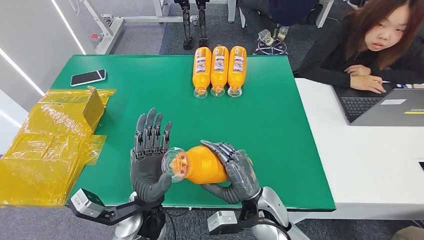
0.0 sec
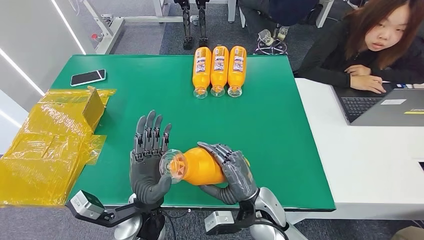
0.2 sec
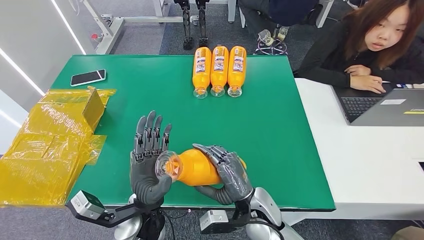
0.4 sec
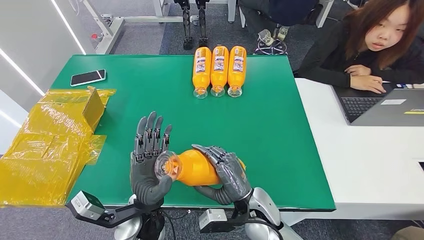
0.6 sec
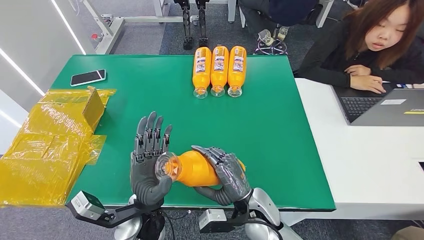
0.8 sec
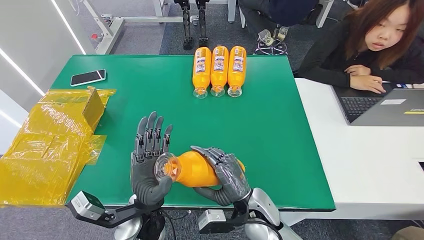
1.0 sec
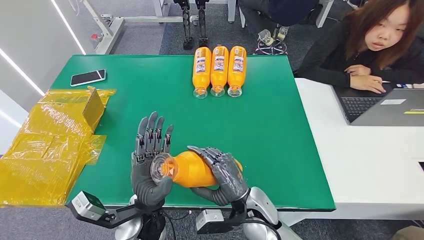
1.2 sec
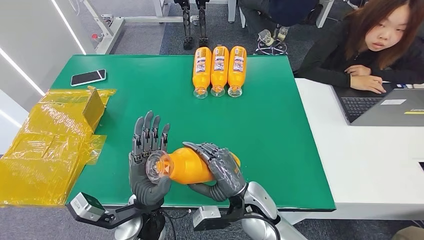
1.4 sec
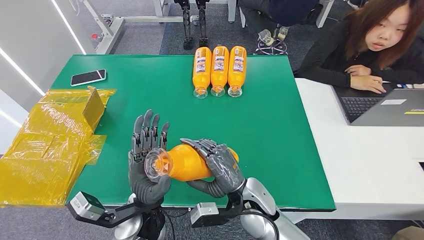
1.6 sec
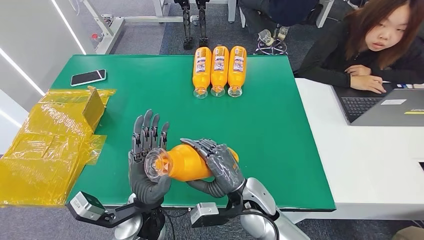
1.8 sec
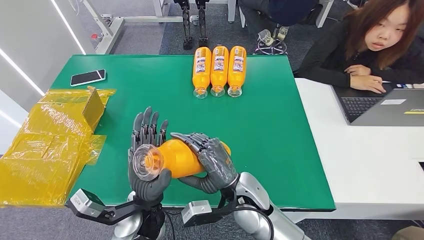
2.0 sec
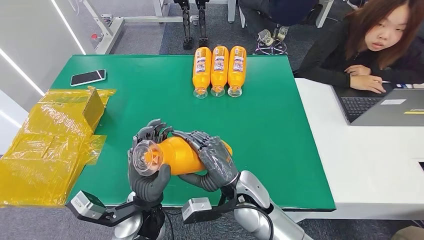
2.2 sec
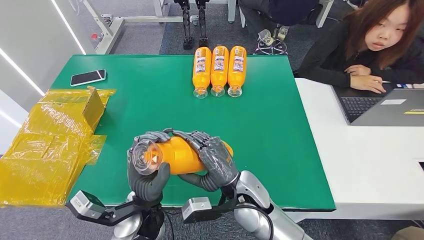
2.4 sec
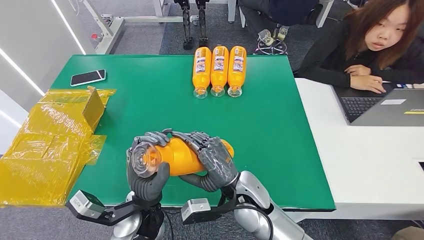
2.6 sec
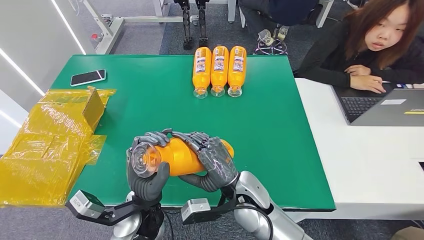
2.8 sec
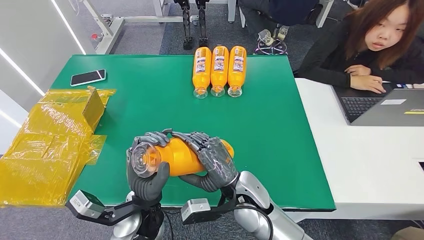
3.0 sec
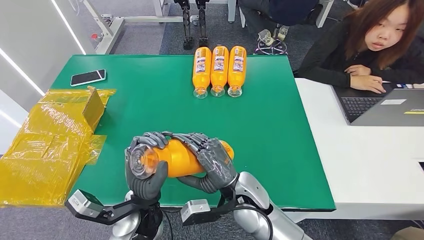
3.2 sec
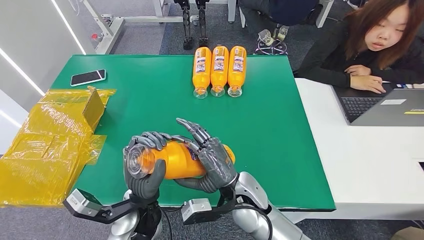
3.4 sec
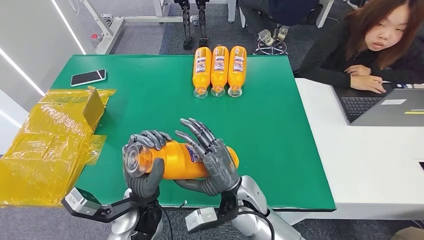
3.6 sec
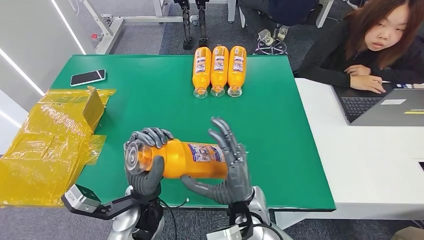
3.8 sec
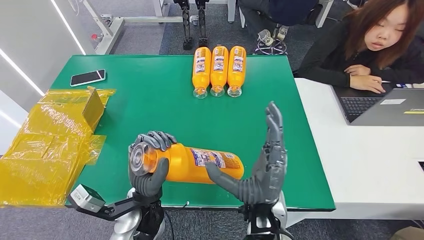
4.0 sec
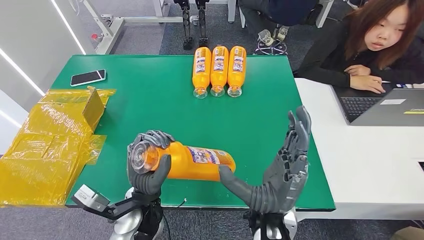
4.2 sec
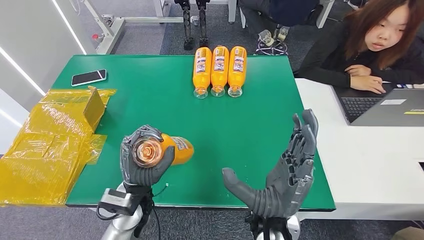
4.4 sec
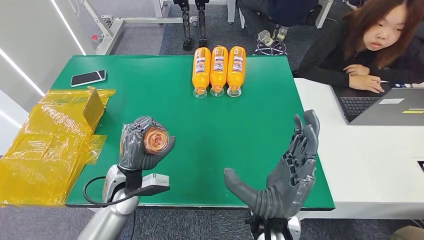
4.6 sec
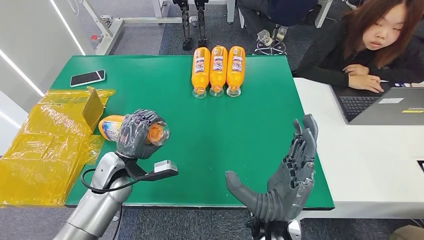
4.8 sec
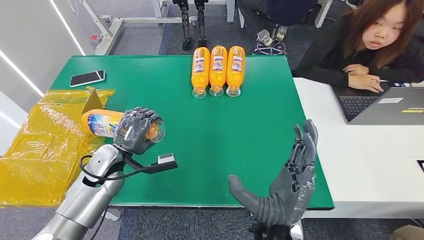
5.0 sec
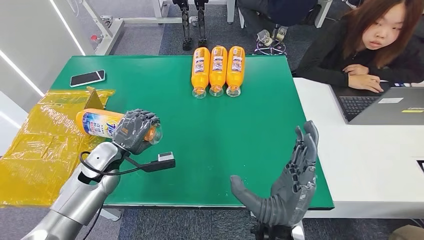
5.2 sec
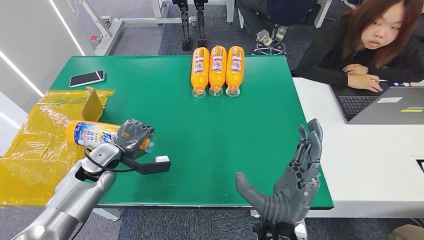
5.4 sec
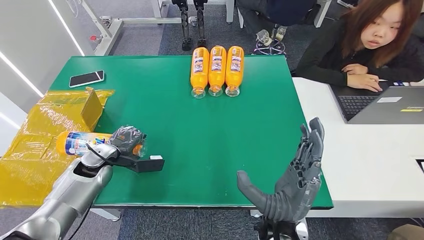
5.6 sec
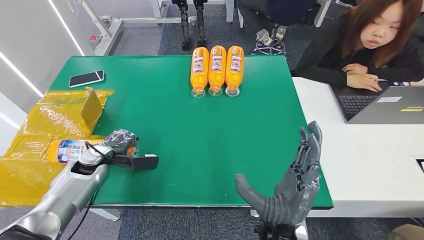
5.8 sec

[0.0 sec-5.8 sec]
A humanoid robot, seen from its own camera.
Step, 0.0 sec to 5.8 sec: Turn the bottle to the front side.
0.0 sec to 2.8 sec: The hands move only a little.
2.8 sec to 4.4 sec: The right hand heads backward and upward, covering about 10 cm.

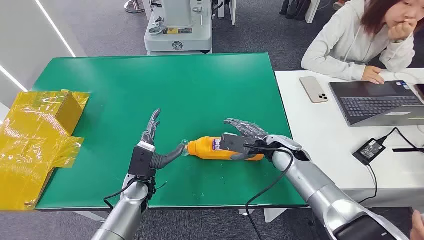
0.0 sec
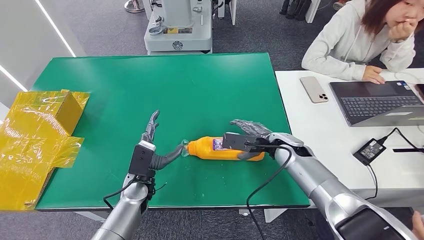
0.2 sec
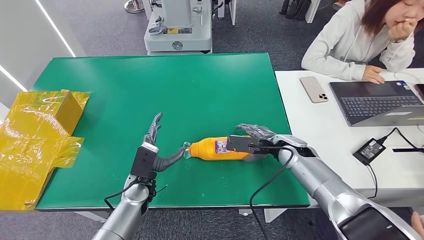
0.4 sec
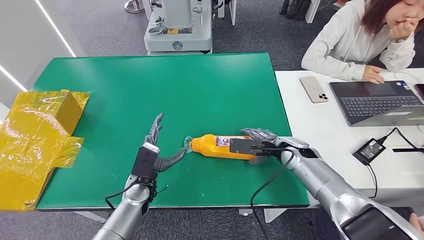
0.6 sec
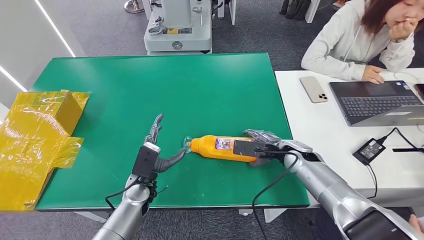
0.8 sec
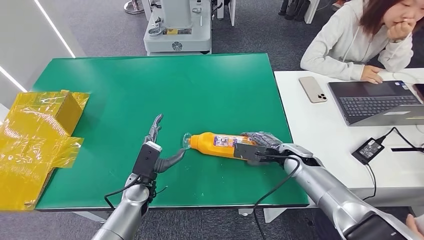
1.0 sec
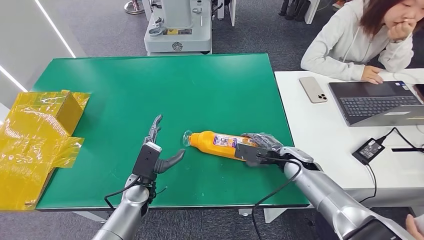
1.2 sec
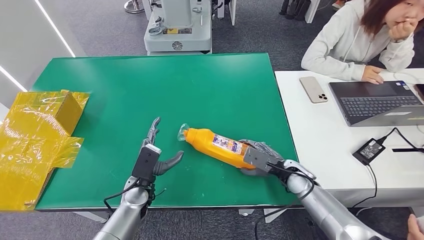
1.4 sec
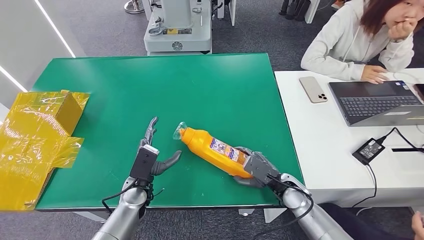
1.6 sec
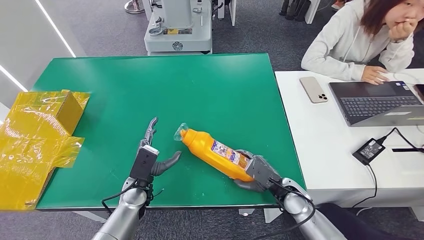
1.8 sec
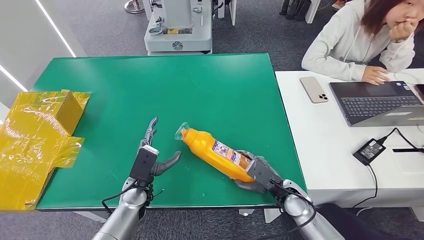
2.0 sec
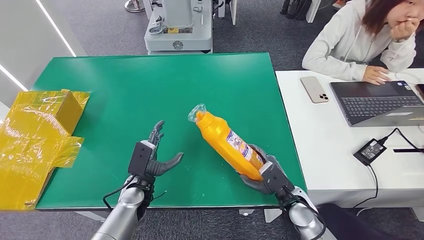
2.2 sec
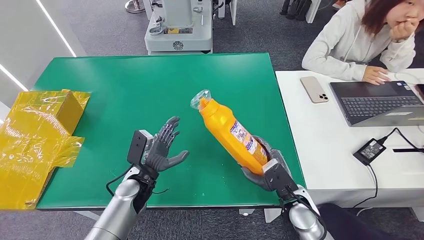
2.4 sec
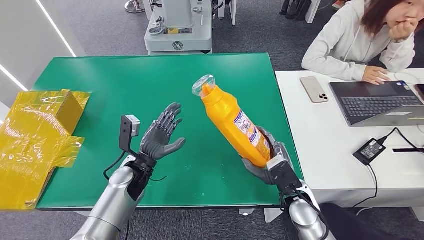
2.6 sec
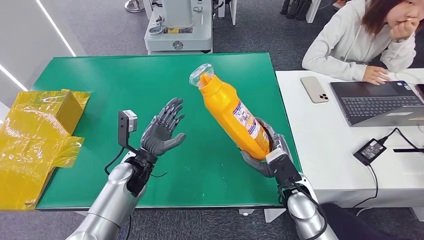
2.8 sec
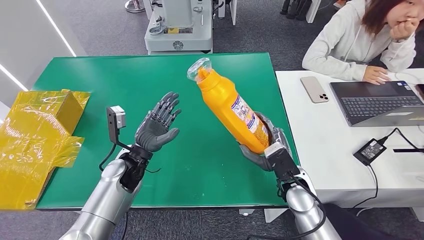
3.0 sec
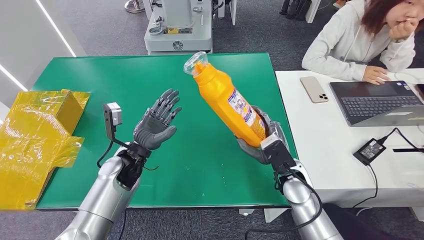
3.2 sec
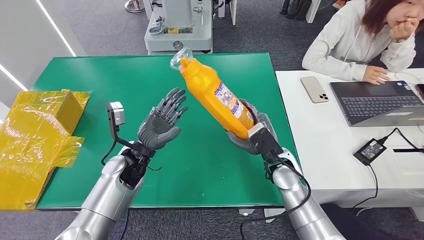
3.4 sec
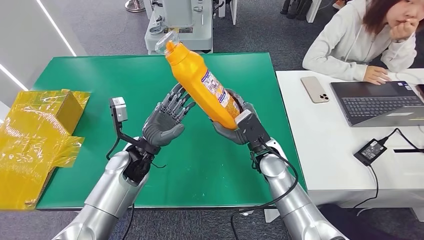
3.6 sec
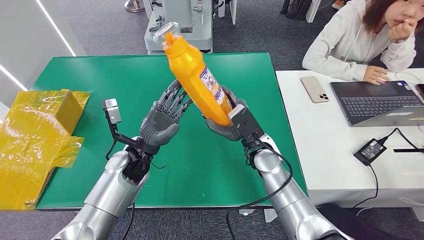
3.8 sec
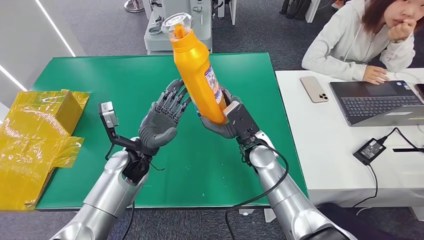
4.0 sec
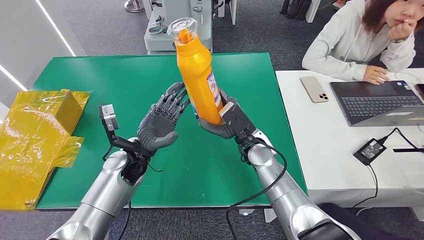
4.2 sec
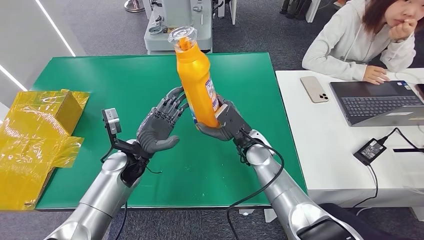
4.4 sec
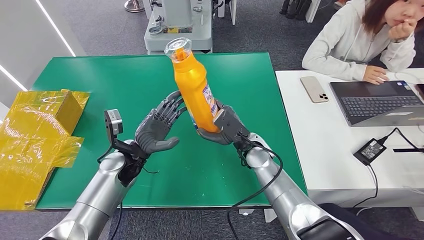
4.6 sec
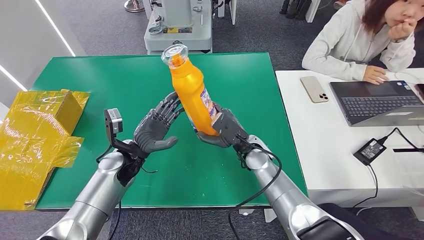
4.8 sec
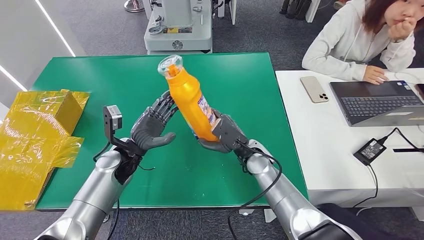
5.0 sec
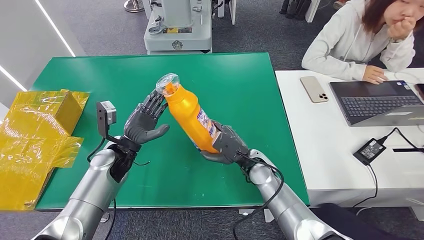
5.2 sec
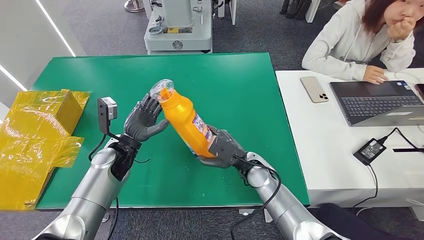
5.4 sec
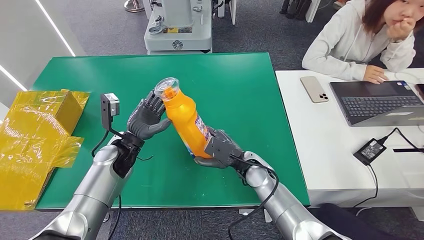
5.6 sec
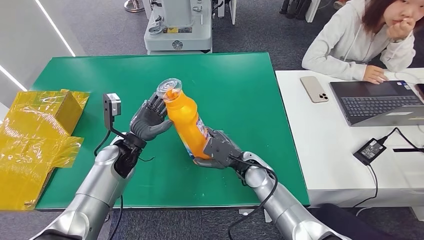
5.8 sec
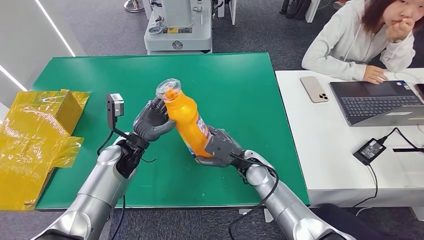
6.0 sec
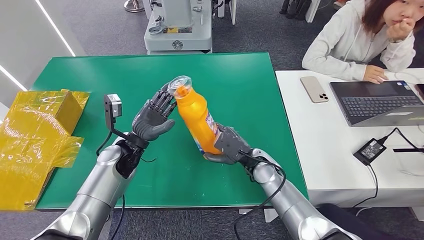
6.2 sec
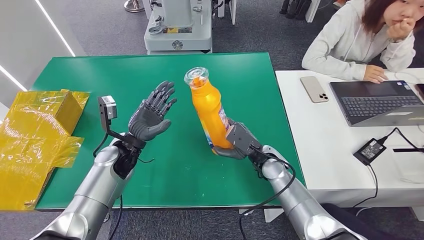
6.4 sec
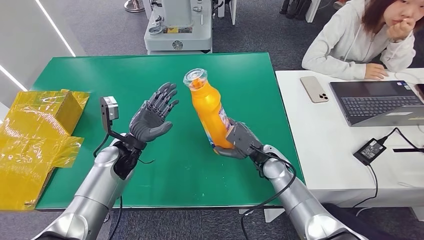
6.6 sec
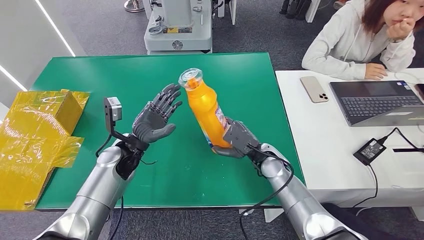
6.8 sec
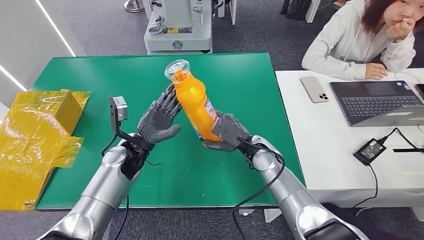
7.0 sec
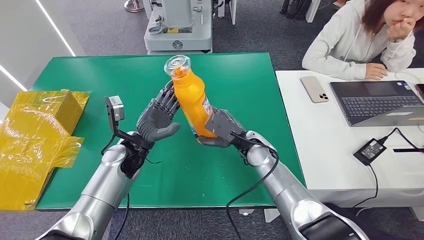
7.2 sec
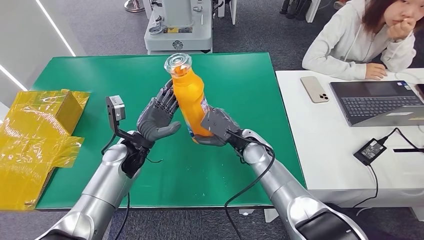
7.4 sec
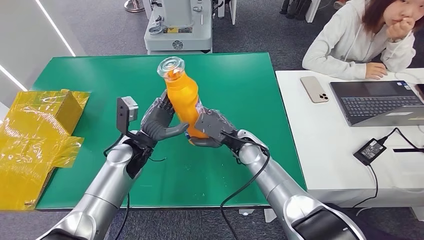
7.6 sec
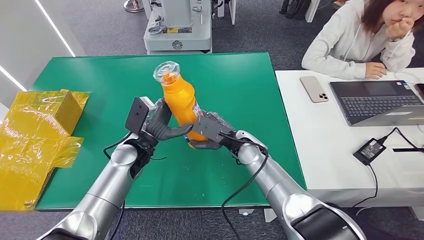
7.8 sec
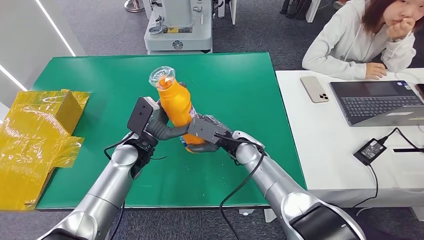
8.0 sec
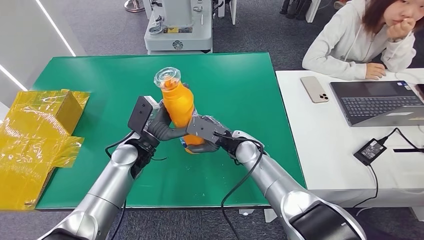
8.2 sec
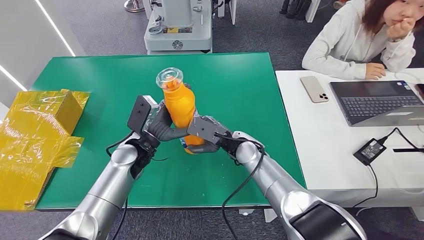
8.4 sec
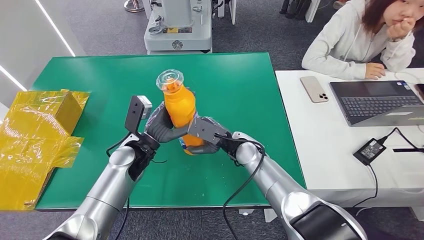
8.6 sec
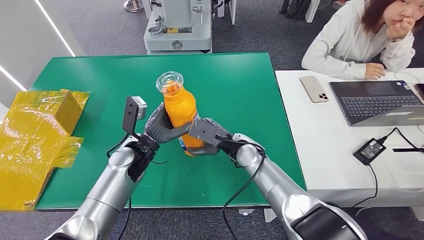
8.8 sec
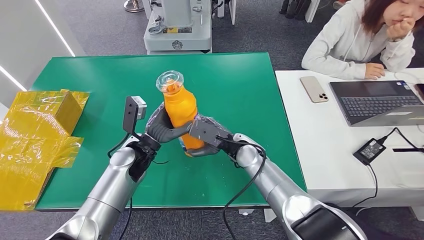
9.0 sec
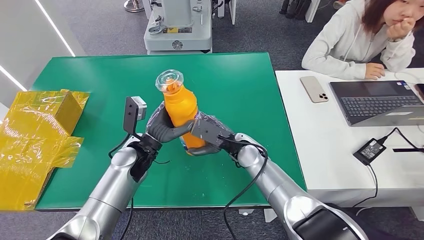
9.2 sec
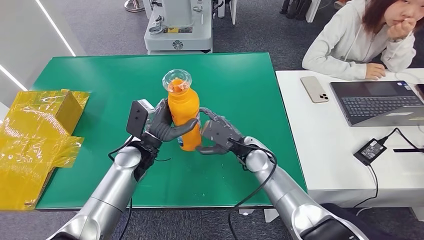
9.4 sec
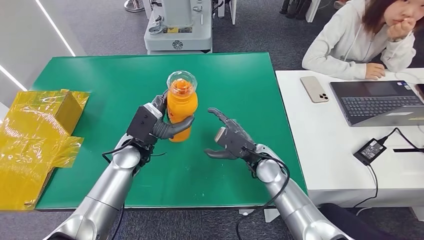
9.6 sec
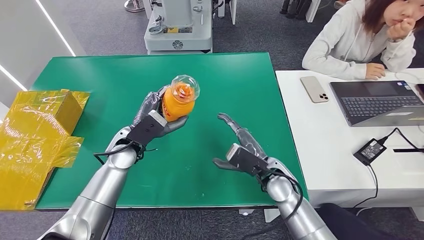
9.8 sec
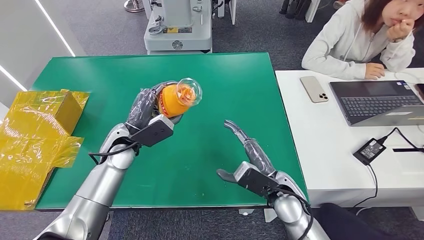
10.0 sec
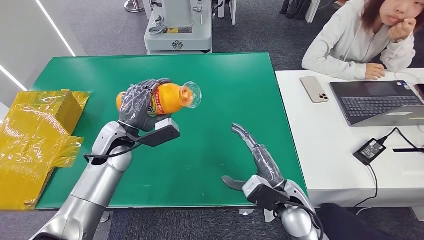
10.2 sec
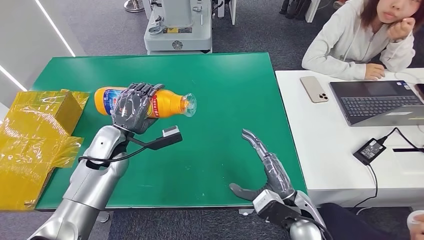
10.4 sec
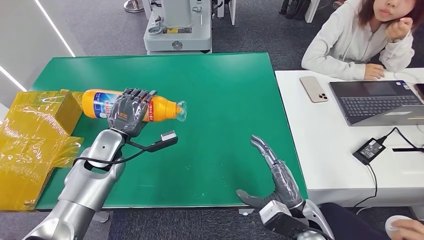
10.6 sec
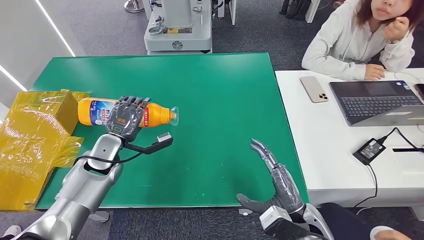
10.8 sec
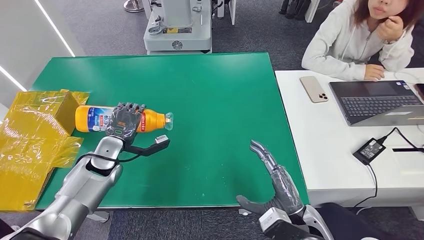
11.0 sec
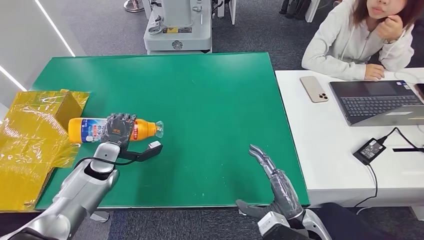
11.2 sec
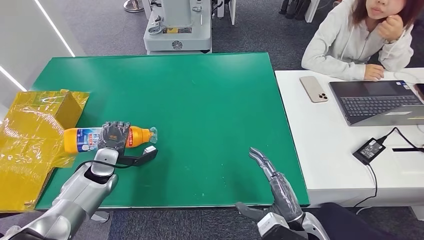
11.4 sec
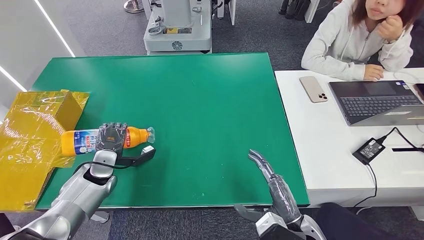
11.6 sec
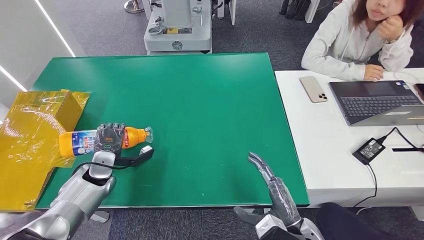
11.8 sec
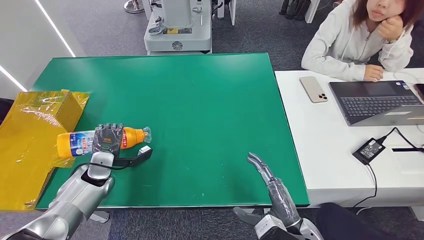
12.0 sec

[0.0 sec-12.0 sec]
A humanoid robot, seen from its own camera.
Step, 0.0 sec to 3.6 sec: Pick up the bottle from the table.
1.6 sec to 3.0 sec: The two hands go about 10 cm upward.
3.0 sec to 4.4 sec: The right hand heads to the left and forward, covering approximately 15 cm.
4.4 sec to 6.0 sec: The right hand ends up some 5 cm from where it was.
6.0 sec to 7.6 sec: The right hand changes place by approximately 5 cm.
7.6 sec to 9.0 sec: The hands move only a little.
9.0 sec to 10.4 sec: The right hand shifts roughly 20 cm backward and to the right; the left hand travels to the left by approximately 5 cm.
10.4 sec to 12.0 sec: The right hand shifts approximately 5 cm backward. The left hand is displaced downward and to the left by some 15 cm.
